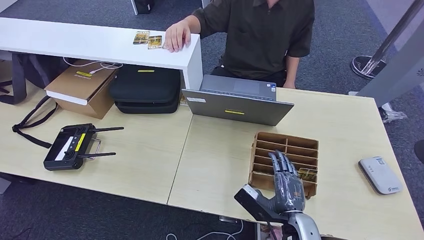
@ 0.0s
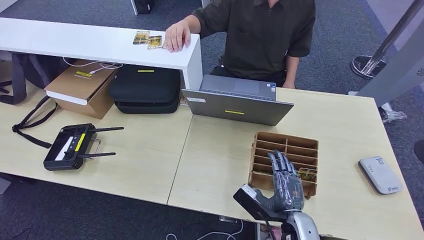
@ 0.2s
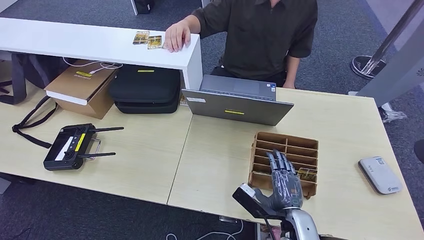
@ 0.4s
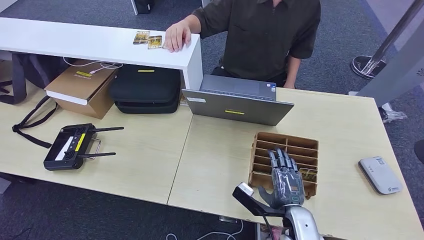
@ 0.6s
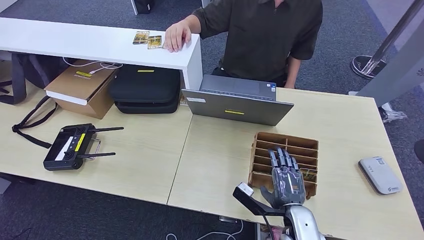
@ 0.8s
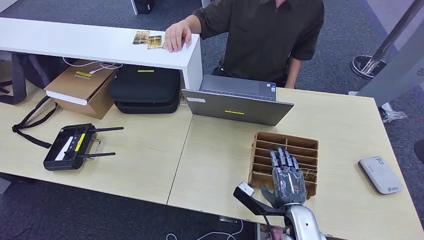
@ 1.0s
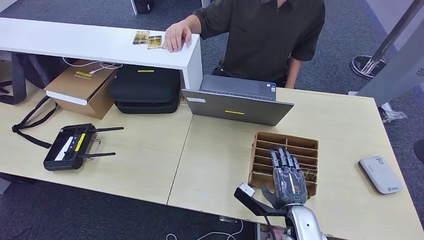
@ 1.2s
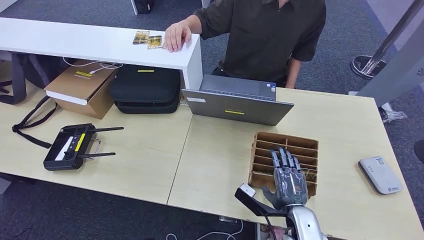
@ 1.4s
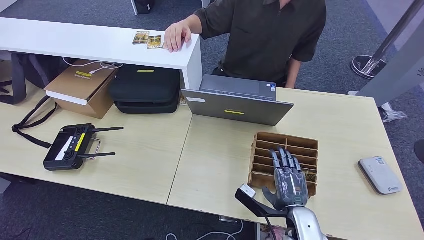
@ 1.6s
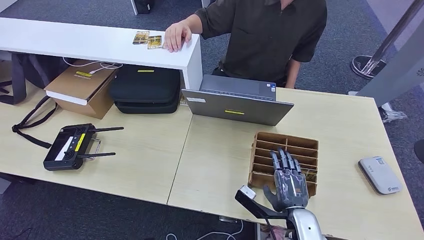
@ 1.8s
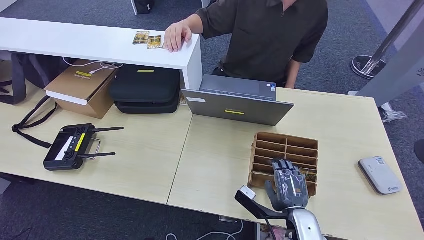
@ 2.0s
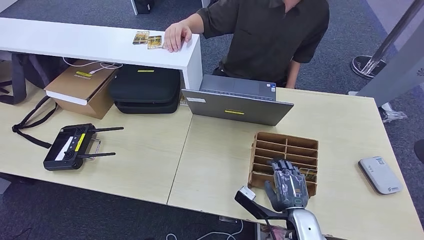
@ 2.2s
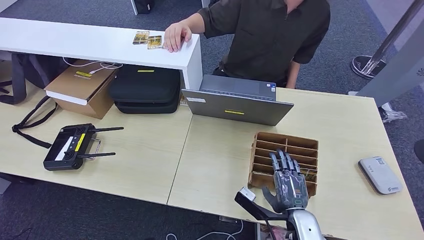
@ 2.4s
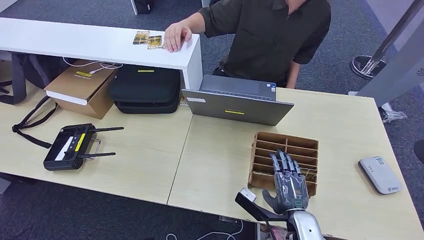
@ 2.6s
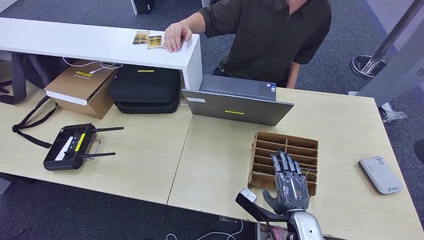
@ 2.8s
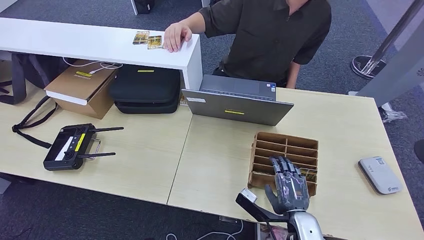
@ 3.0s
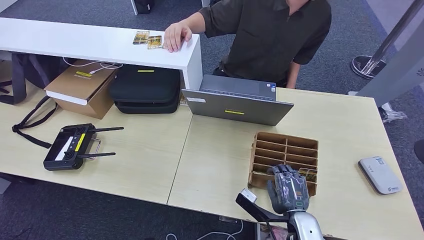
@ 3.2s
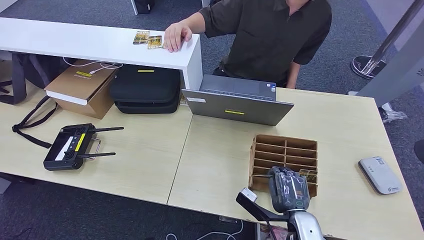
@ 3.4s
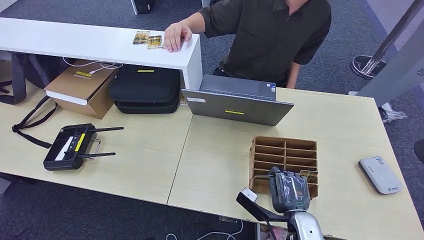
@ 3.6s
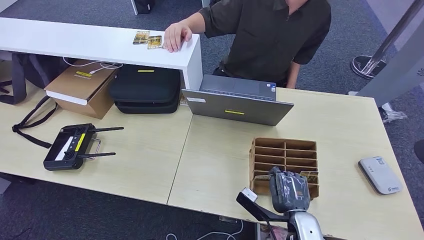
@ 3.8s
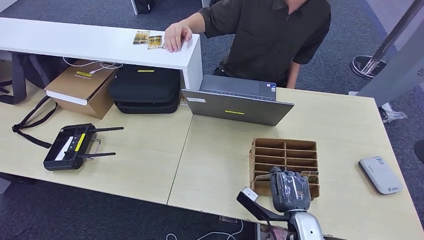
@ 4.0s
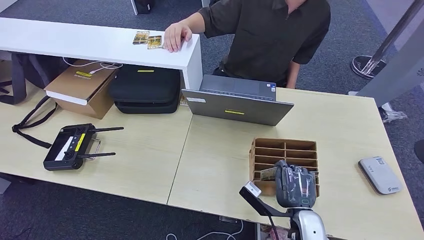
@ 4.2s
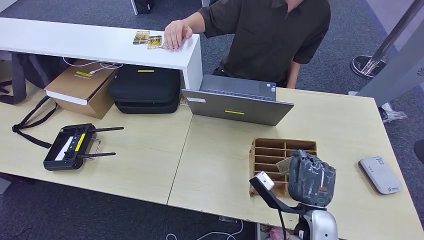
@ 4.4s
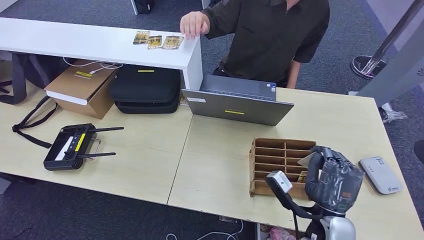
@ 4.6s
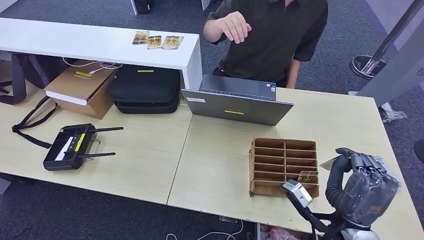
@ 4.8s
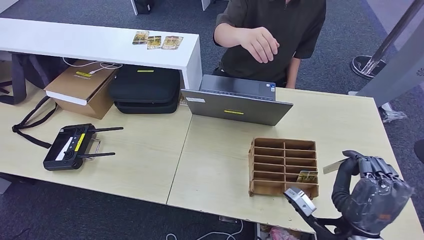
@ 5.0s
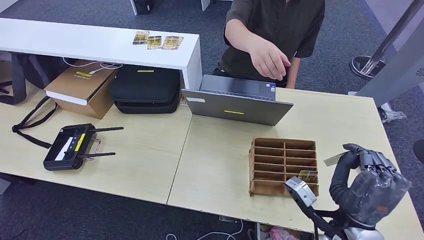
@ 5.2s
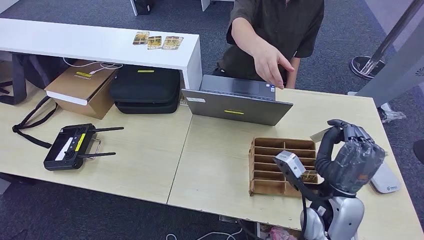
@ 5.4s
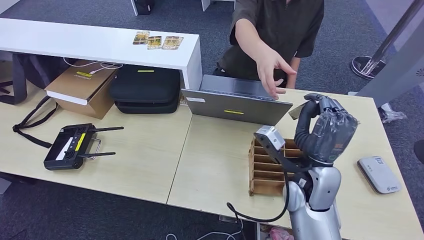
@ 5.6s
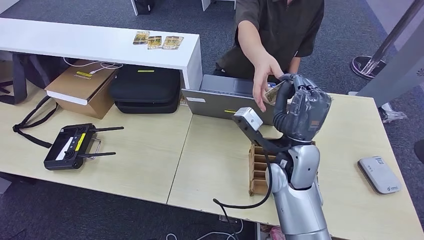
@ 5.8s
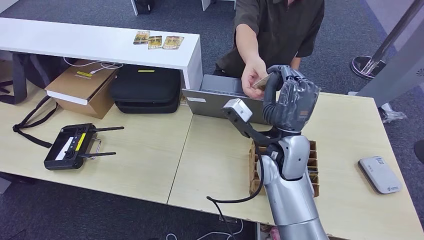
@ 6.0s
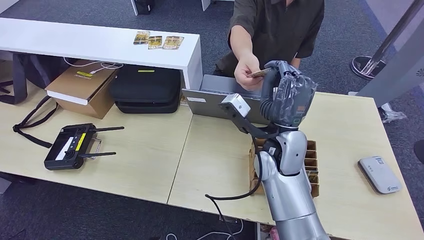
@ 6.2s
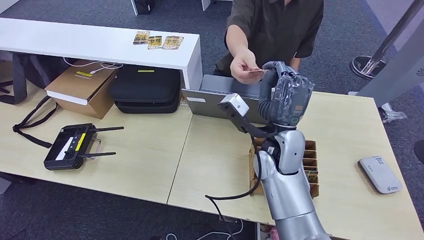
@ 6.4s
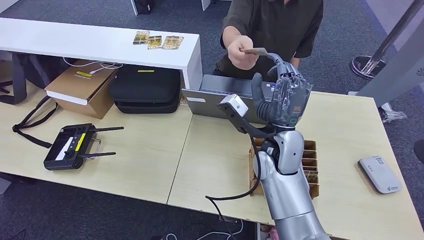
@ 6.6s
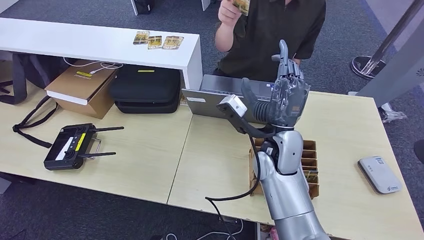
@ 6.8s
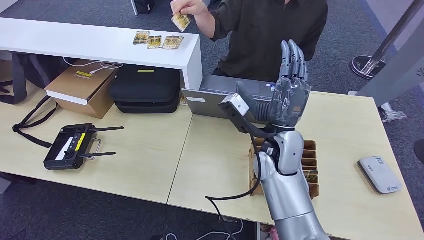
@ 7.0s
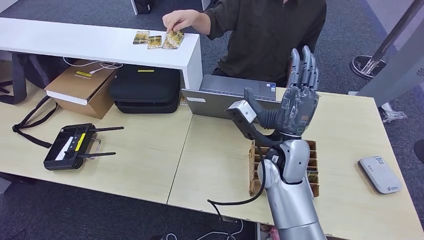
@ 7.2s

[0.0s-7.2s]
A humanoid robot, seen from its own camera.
Step, 0.0s to 4.6s: Pick up the room key from the key card box.
Step, 5.0s to 7.2s: Hand the room key to the person.
0.0s to 1.4s: The hands stay close to where they were, moving slightly.
1.4s to 2.8s: Neither hand changes place.
4.4s to 5.8s: The right hand travels upward, forward and to the left by roughly 15 cm.
5.8s to 7.2s: The hands move only a little.

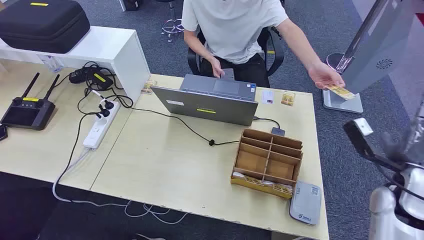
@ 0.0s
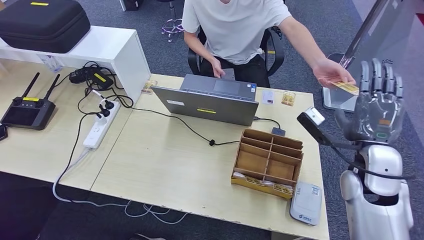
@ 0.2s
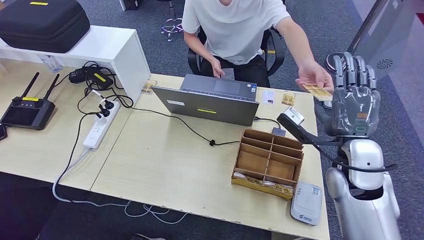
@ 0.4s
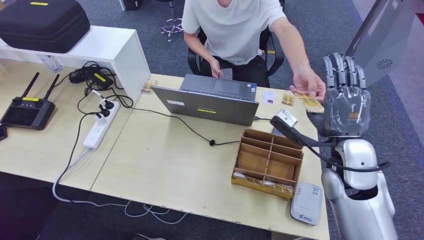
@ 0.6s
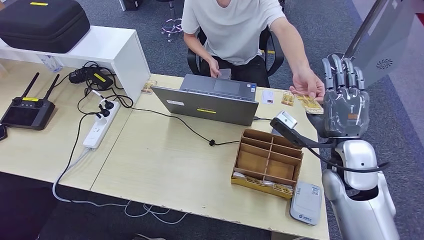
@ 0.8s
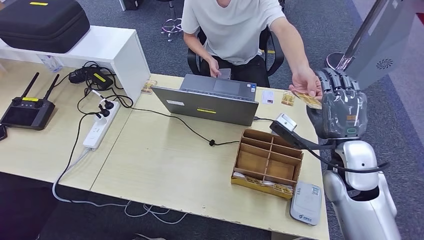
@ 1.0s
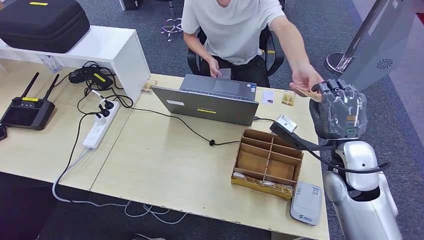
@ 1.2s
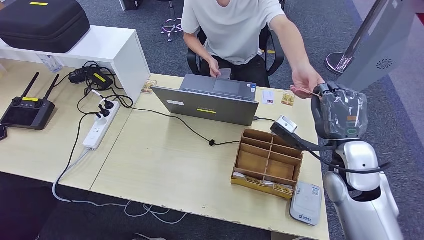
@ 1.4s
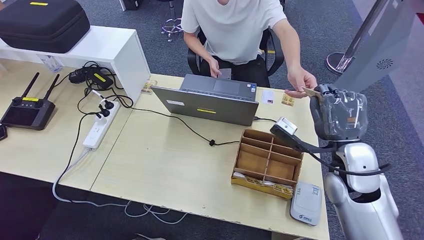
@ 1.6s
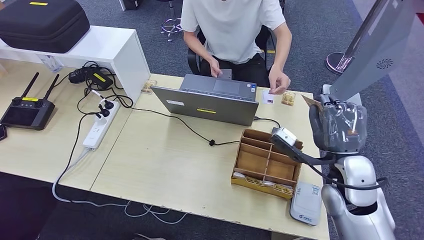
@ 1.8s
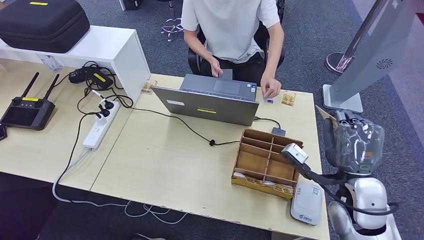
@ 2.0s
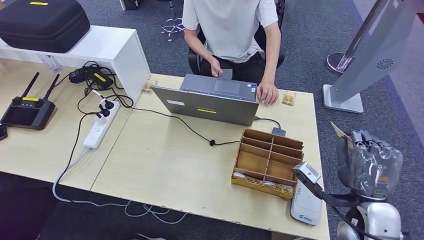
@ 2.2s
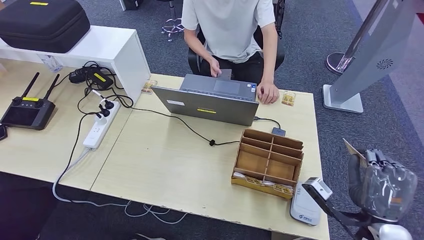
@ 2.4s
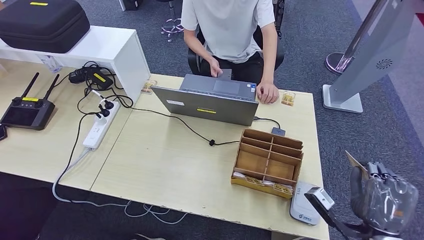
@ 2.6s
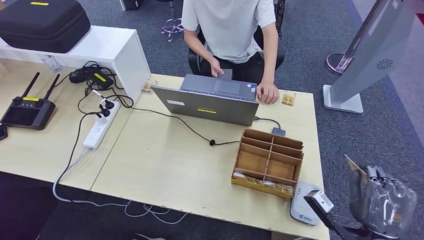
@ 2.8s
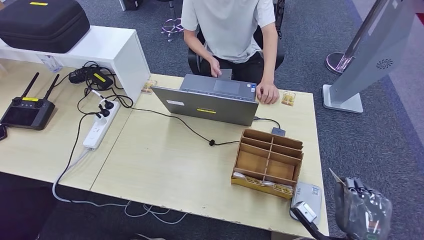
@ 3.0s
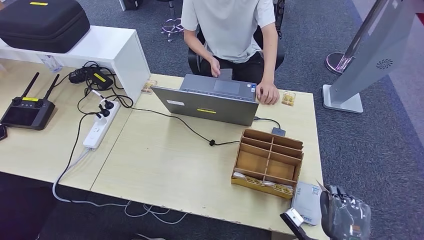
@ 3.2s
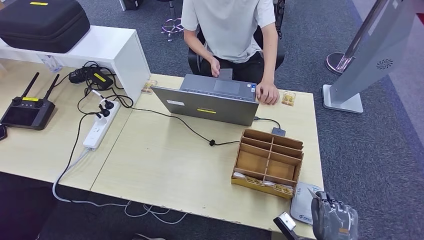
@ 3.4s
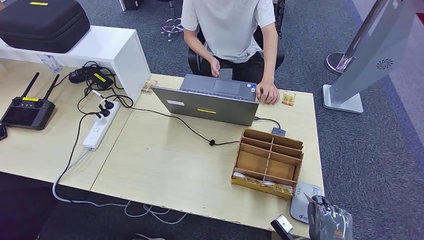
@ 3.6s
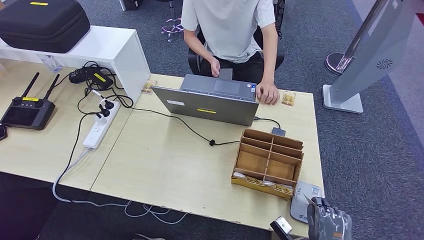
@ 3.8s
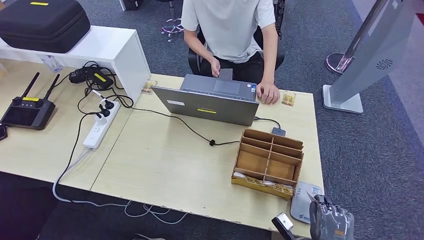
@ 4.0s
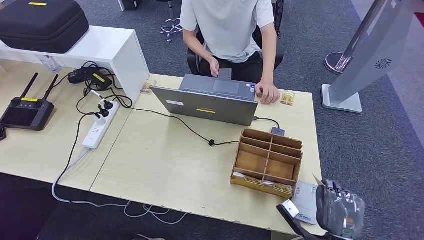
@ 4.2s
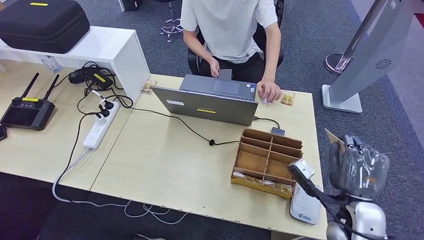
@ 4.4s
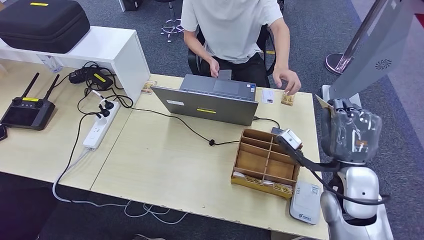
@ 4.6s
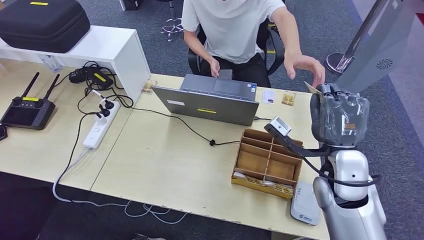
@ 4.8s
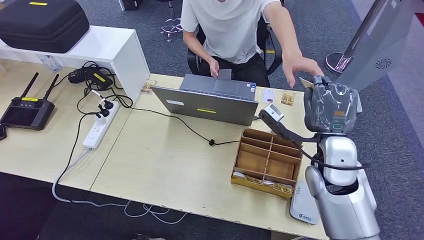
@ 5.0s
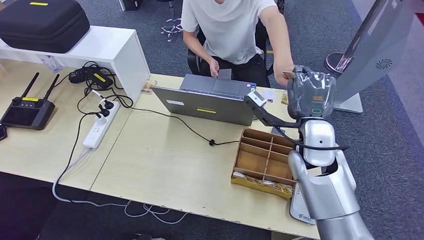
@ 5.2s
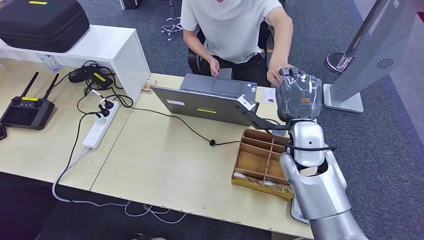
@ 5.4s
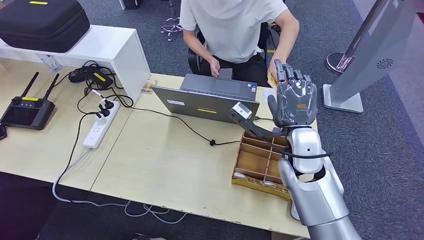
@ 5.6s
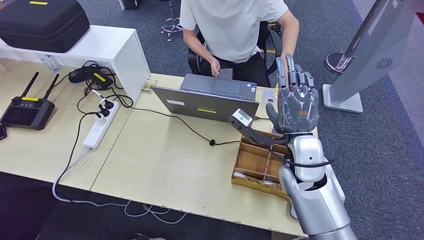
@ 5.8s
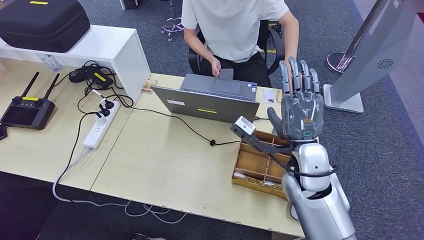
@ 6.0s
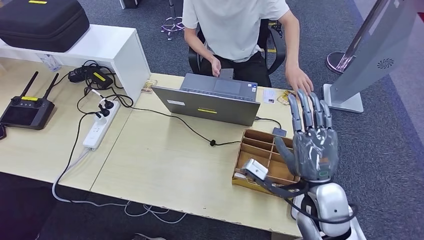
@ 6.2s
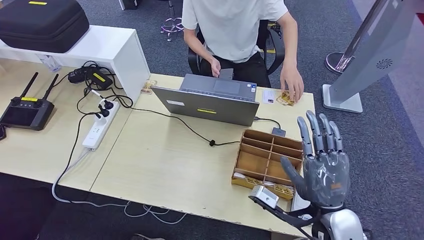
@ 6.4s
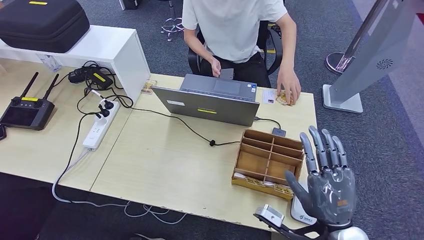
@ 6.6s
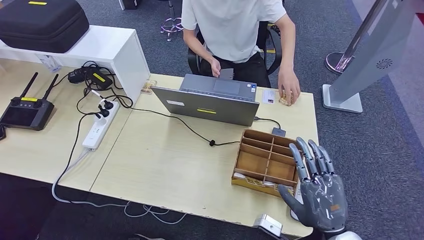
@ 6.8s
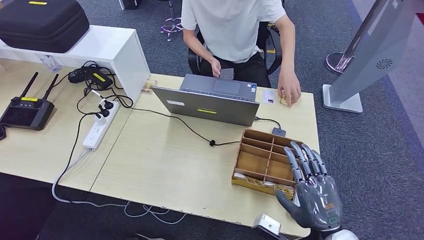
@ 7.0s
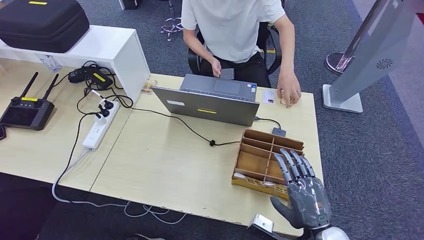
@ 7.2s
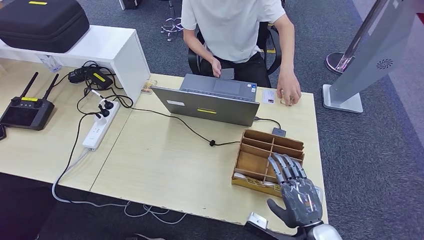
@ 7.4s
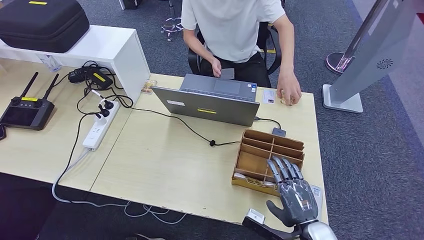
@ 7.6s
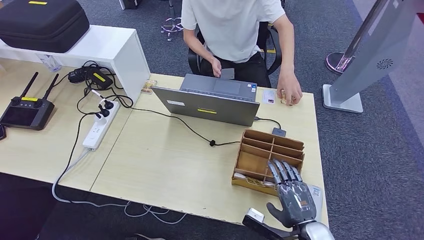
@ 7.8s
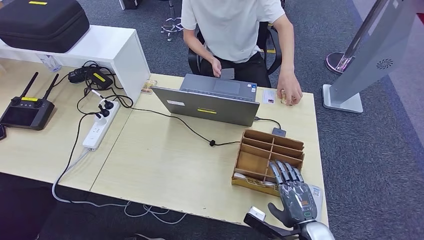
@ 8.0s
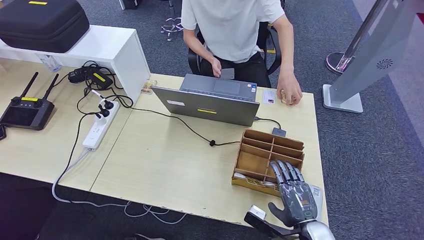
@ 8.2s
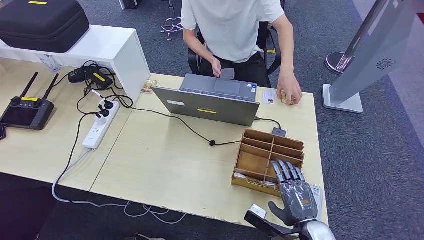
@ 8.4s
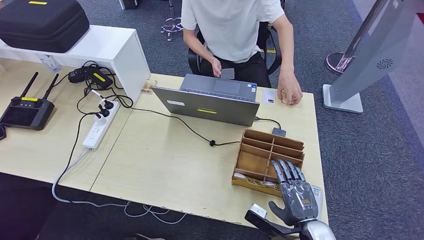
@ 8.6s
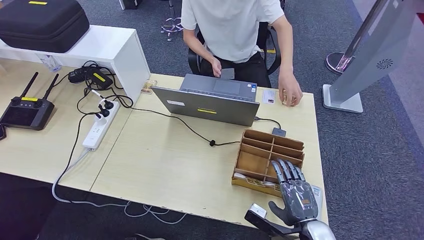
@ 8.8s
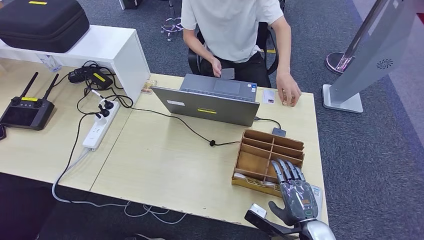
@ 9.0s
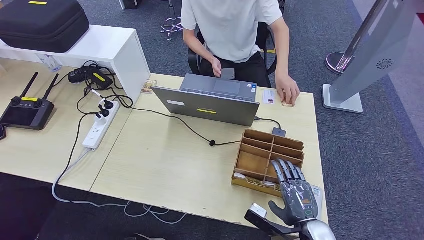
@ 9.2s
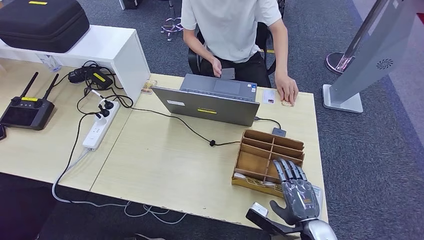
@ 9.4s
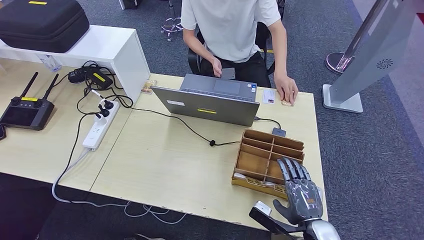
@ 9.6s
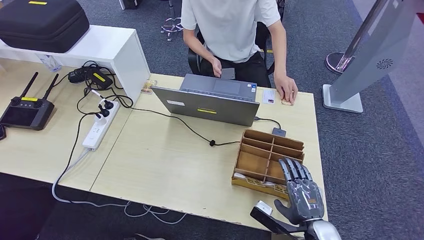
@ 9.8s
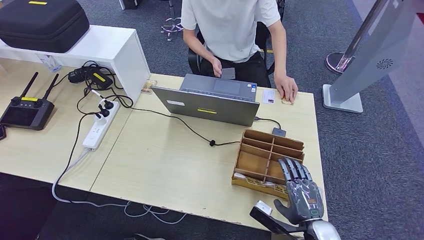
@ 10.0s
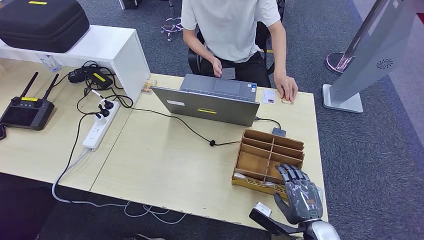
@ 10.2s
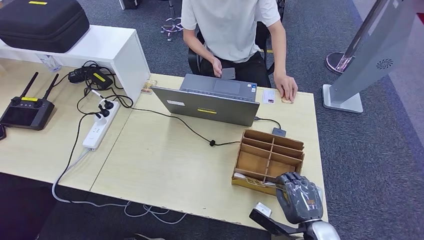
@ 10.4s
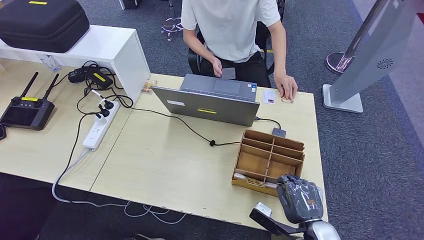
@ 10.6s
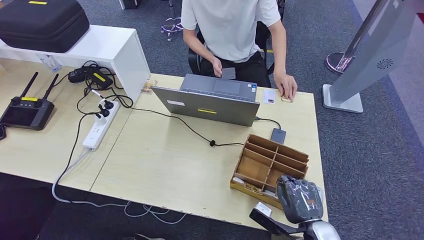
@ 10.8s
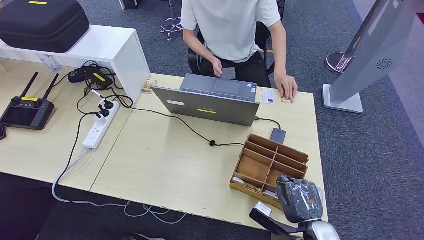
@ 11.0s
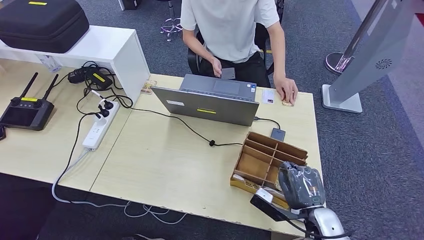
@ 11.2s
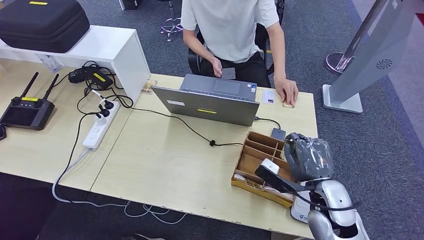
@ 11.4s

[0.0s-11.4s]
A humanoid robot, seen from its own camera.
Step, 0.0s to 2.0s: Take the ID card from the person's hand.
Step, 2.4s to 4.2s: Place the ID card on the card reader.
Step, 4.4s to 6.2s: Hand the ID card to the person.
1.4s to 2.8s: The right hand goes about 20 cm backward, downward and to the right.
2.8s to 4.2s: The right hand is displaced downward by about 10 cm.
4.2s to 5.6s: The right hand goes roughly 30 cm upward, forward and to the left.
5.6s to 7.2s: The right hand travels backward, downward and to the right by approximately 20 cm.
7.2s to 8.6s: The right hand goes some 5 cm downward.
8.6s to 10.0s: Both hands stay put.
10.0s to 11.4s: The right hand goes about 10 cm upward and forward.
